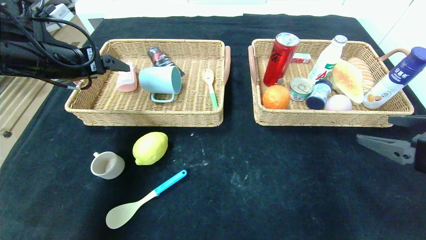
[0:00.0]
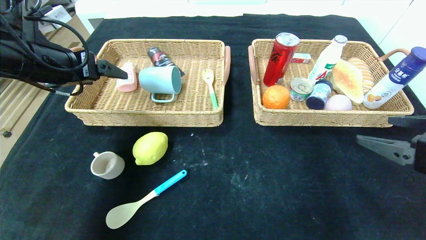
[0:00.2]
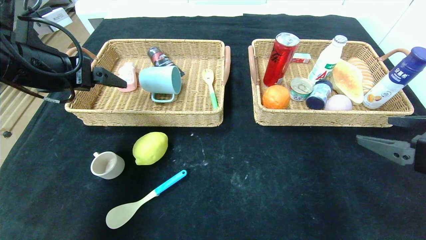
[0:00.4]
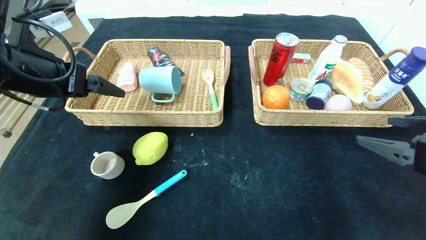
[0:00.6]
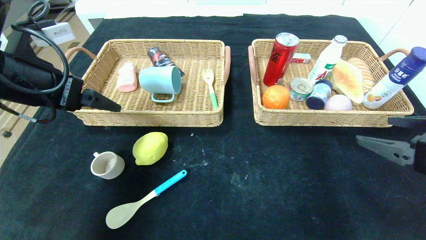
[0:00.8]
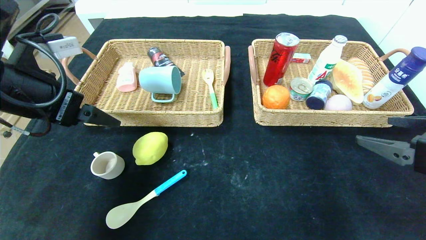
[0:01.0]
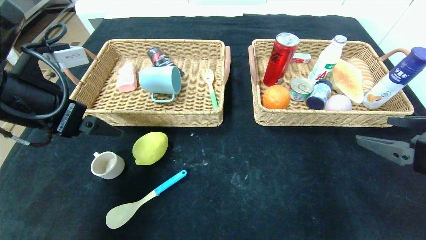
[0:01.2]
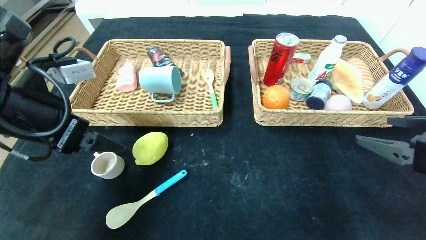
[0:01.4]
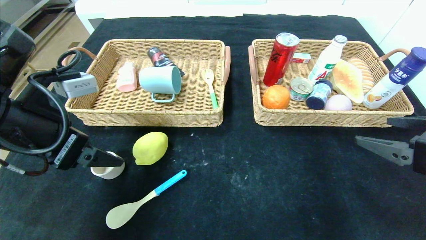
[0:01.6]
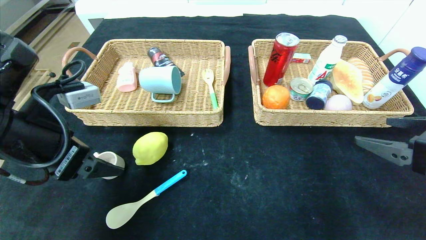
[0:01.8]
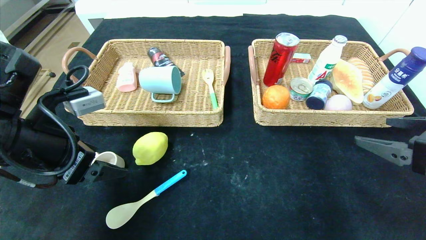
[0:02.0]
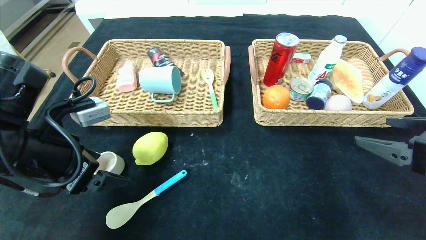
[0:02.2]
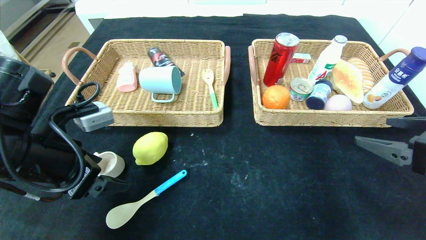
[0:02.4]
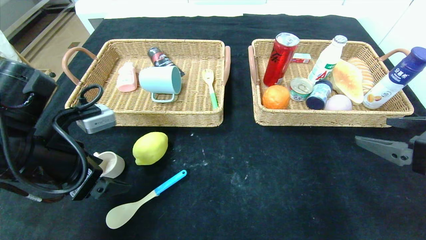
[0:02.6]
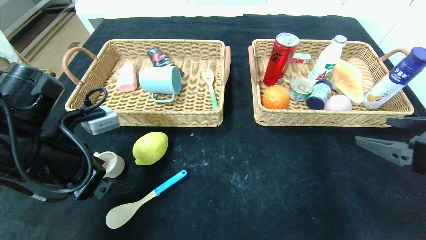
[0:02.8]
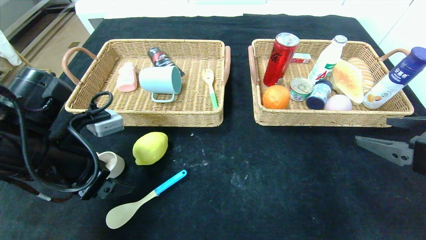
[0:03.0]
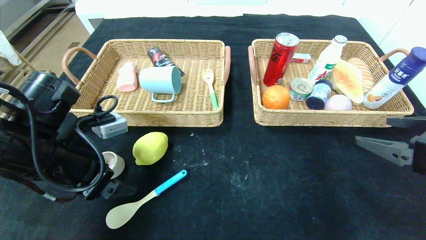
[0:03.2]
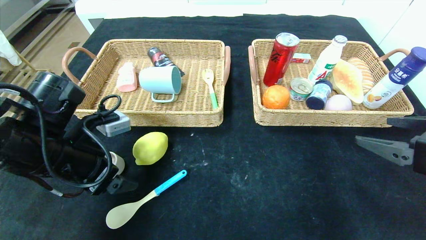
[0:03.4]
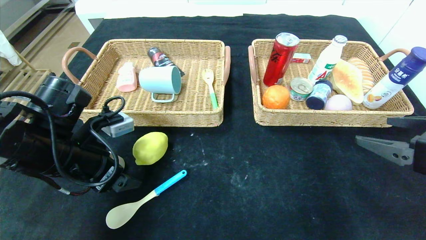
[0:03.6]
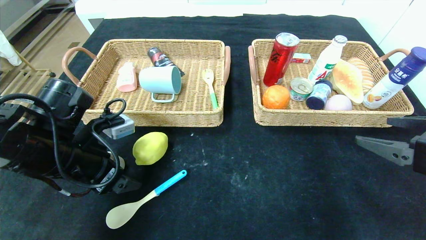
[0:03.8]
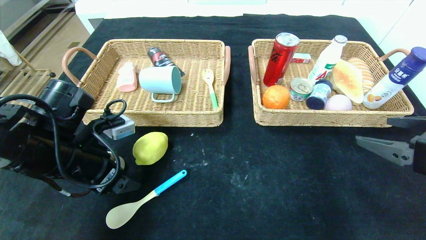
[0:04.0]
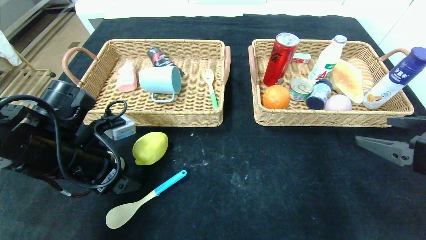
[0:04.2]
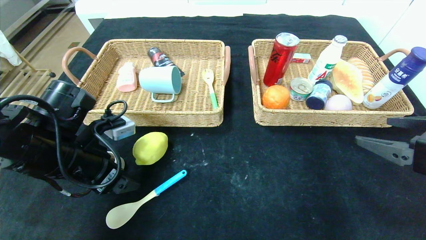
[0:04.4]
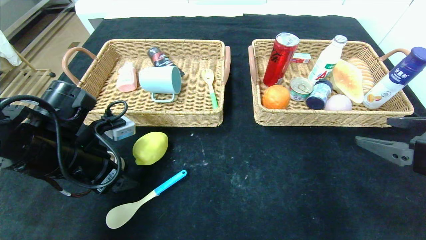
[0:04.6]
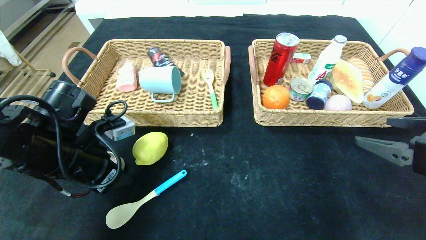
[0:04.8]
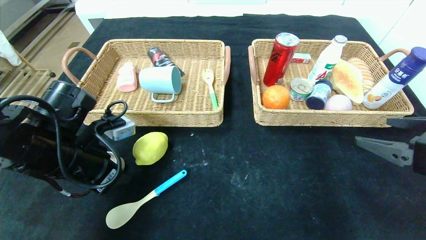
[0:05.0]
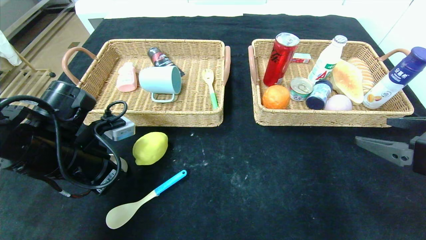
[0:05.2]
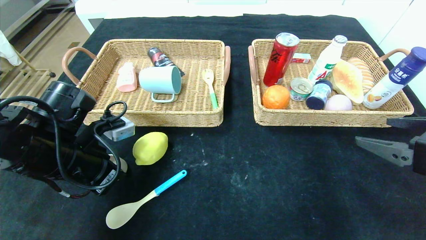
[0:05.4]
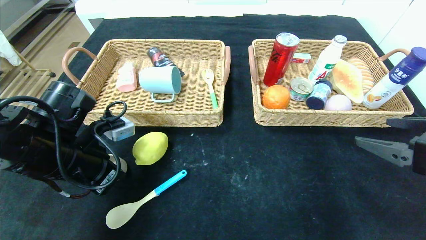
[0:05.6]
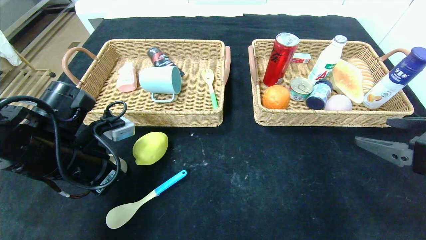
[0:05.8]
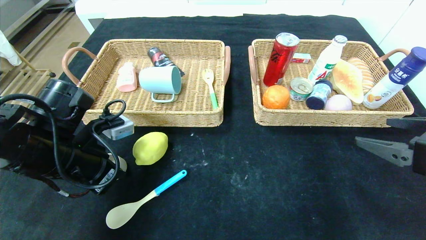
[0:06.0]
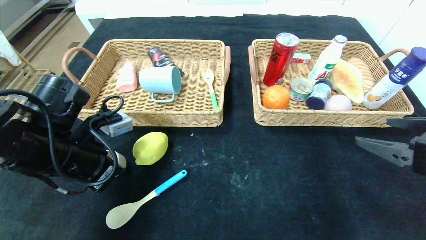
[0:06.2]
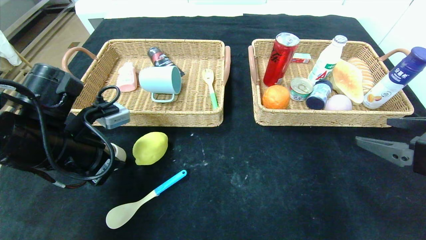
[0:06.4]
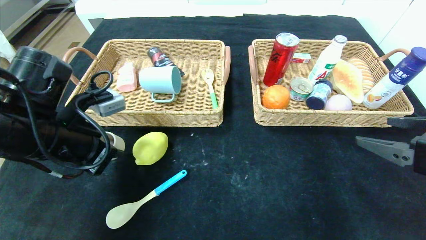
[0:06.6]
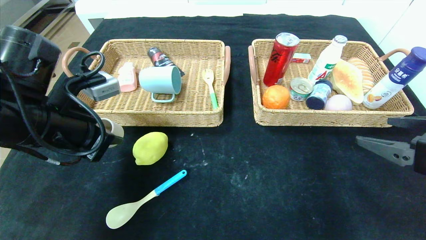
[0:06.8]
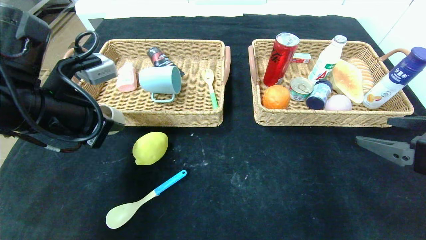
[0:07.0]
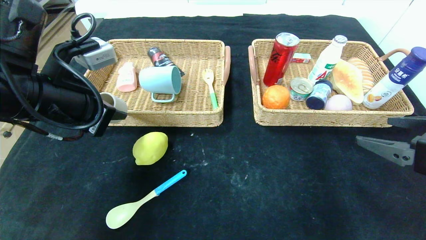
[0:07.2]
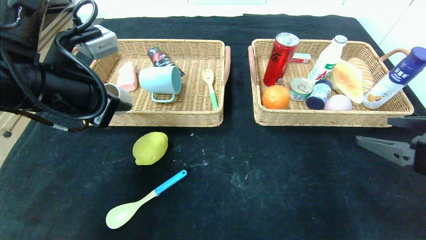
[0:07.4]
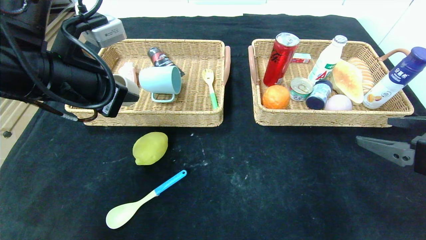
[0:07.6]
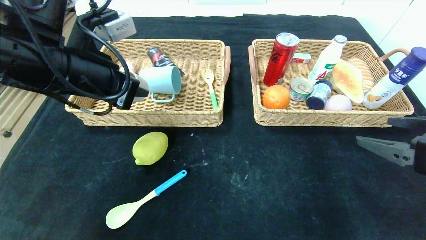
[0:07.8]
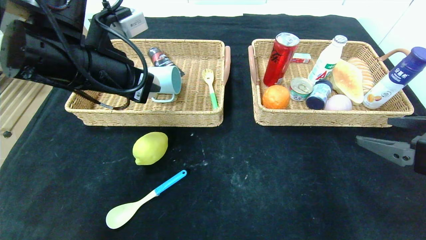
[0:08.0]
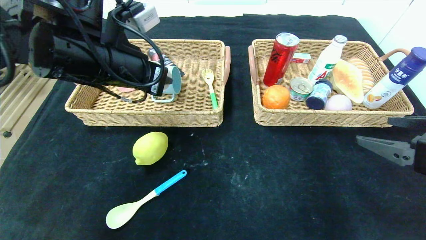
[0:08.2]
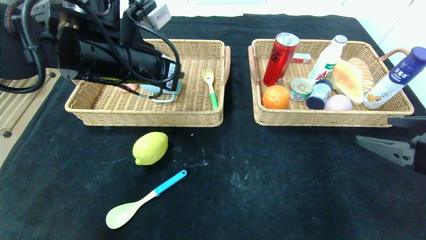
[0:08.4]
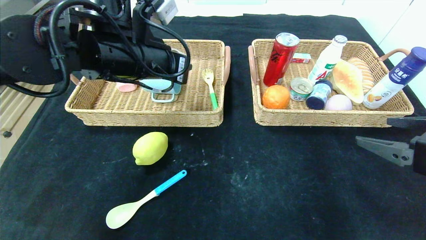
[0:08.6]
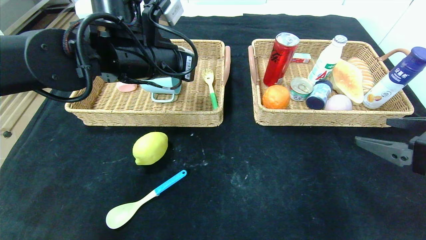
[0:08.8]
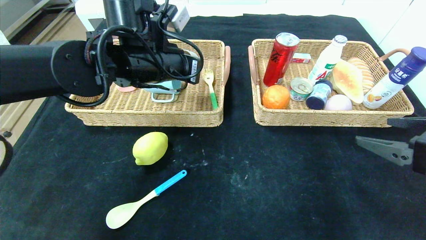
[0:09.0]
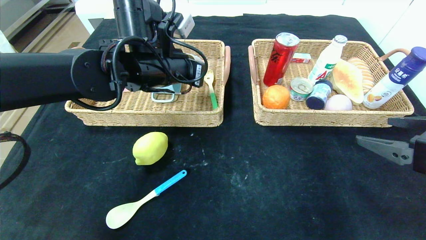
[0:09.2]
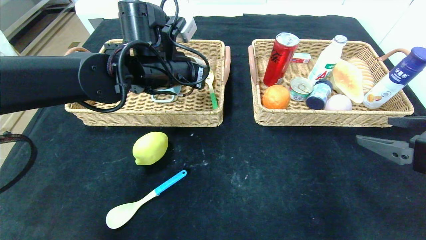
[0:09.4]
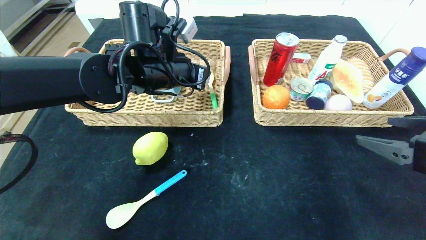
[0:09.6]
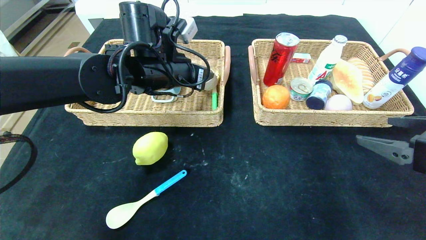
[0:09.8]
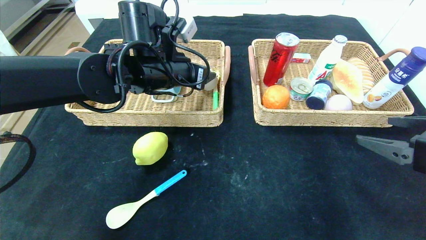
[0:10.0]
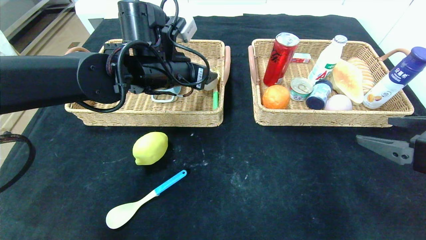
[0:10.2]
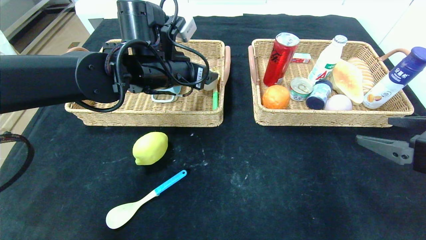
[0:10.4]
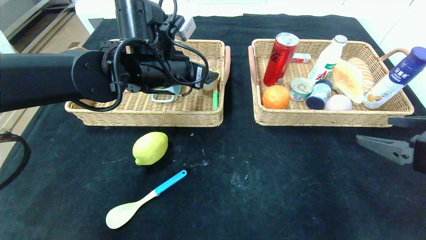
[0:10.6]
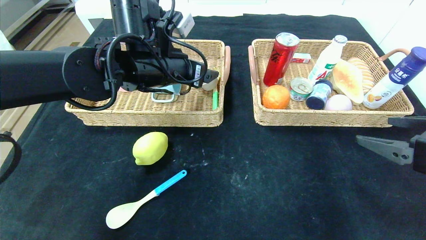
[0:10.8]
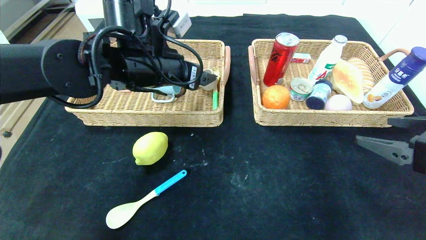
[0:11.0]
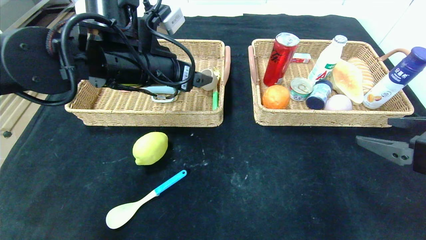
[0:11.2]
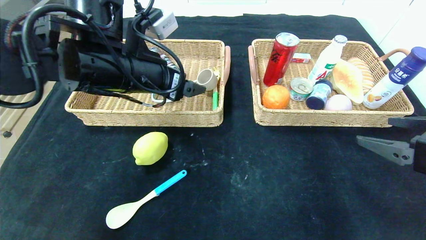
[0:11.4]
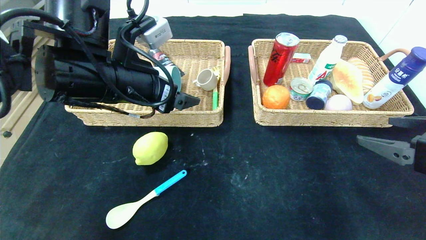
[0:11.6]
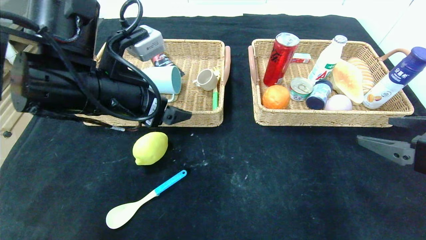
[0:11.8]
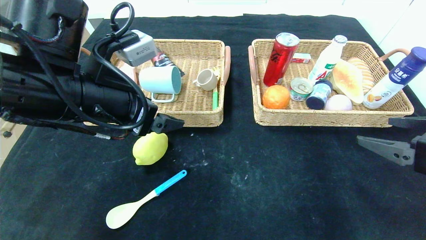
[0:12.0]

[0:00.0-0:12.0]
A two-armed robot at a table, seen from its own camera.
Step, 0:00.4 to 0:10.0: Grasp the grey cup and put it in the left basket.
0:00.0 to 0:01.6: The left gripper goes about 10 cm backward.
0:01.6 to 0:03.0: The left gripper heads downward, covering approximately 5 cm.
0:03.0 to 0:04.4: The grippers stay close to where they were, moving slightly.
0:04.4 to 0:06.0: The left gripper closes its fingers.
0:06.0 to 0:07.6: The left gripper is displaced upward by roughly 10 cm.
0:07.6 to 0:09.0: The left gripper is displaced forward and to the right by about 15 cm.
0:09.0 to 0:10.4: The left gripper opens.
0:10.4 to 0:12.0: The left gripper moves backward and to the left, approximately 15 cm.

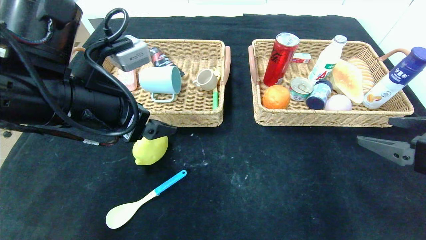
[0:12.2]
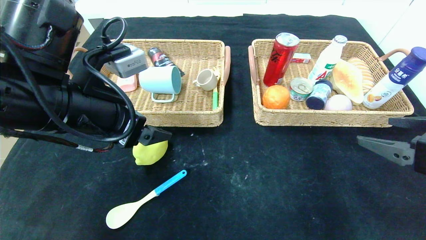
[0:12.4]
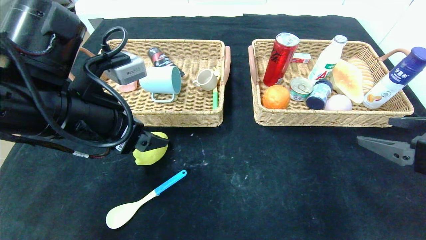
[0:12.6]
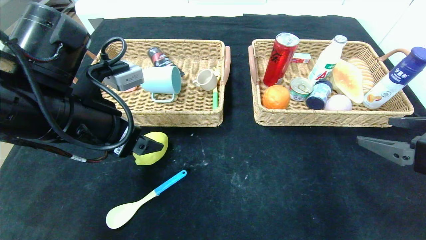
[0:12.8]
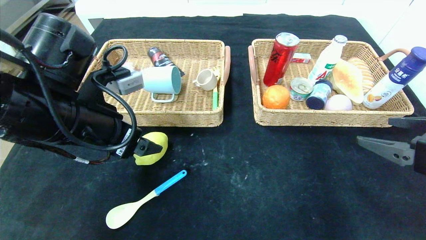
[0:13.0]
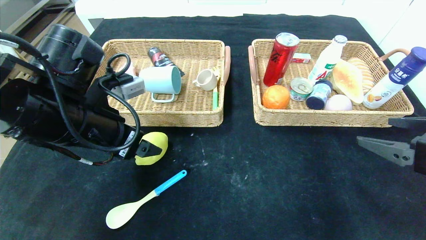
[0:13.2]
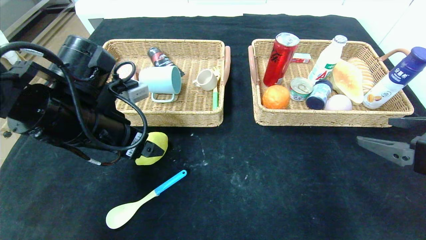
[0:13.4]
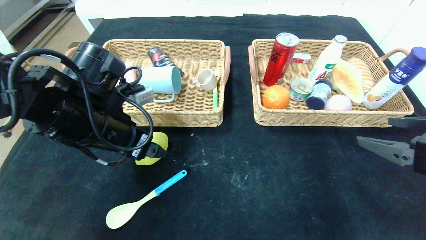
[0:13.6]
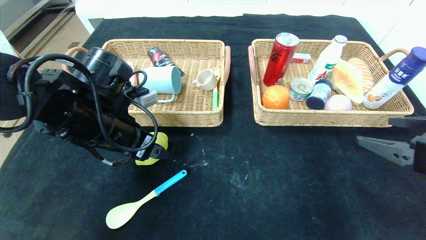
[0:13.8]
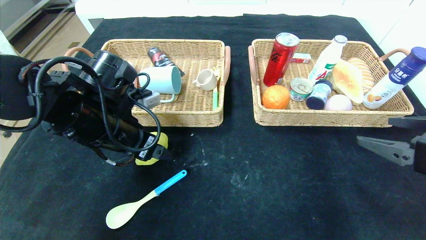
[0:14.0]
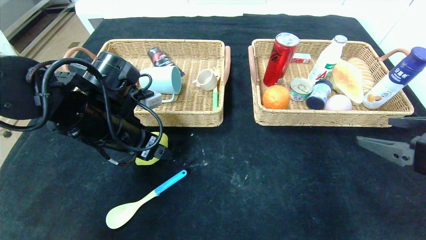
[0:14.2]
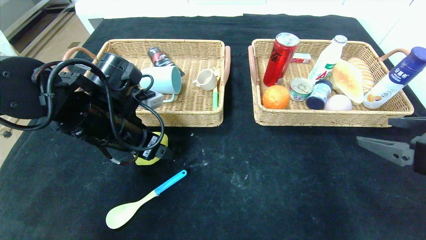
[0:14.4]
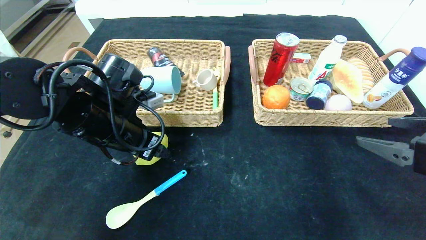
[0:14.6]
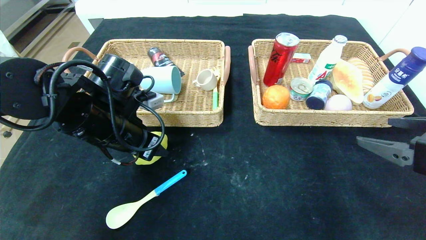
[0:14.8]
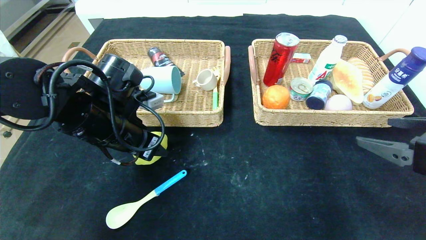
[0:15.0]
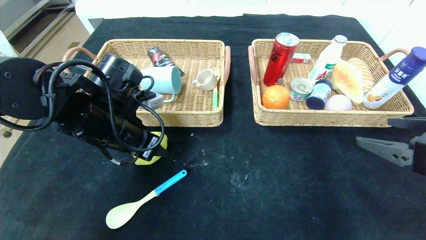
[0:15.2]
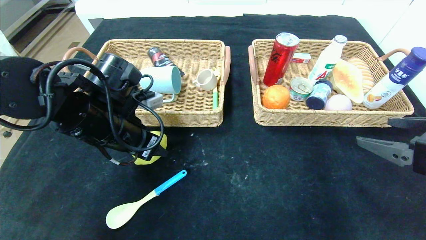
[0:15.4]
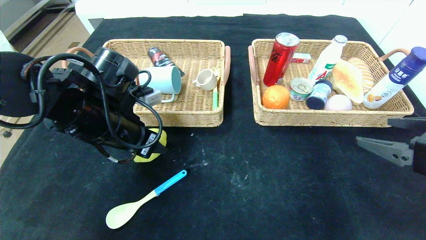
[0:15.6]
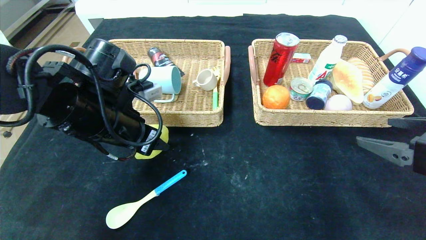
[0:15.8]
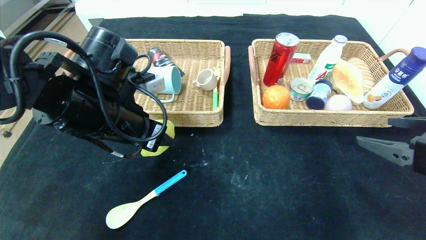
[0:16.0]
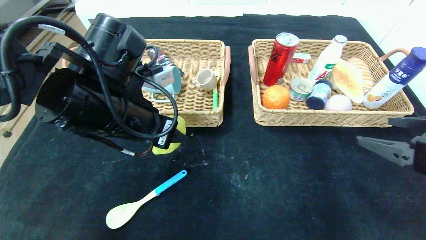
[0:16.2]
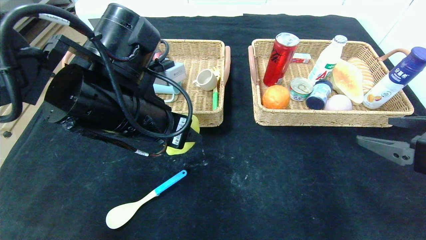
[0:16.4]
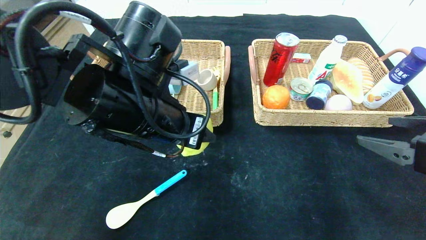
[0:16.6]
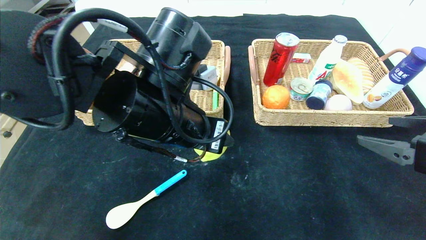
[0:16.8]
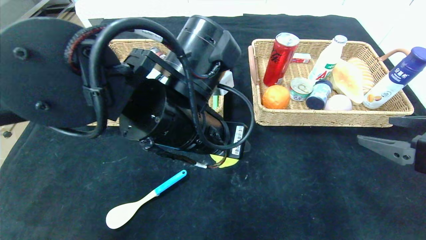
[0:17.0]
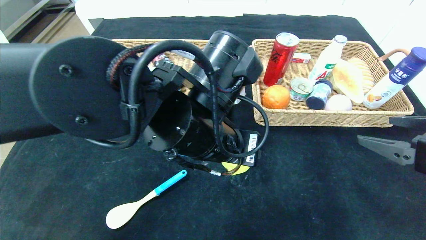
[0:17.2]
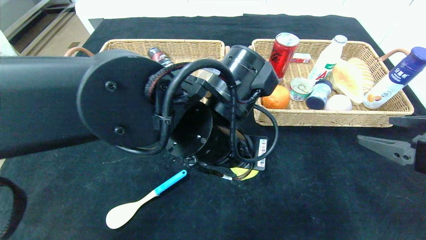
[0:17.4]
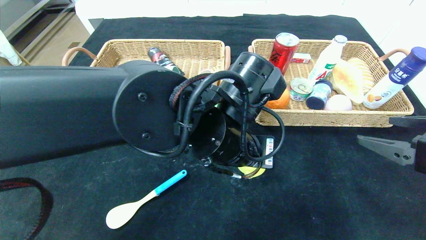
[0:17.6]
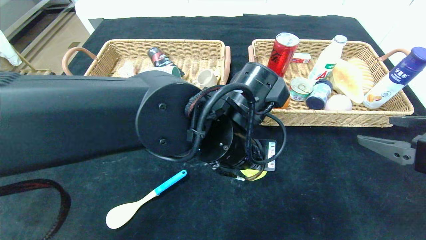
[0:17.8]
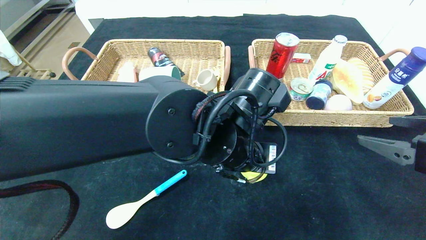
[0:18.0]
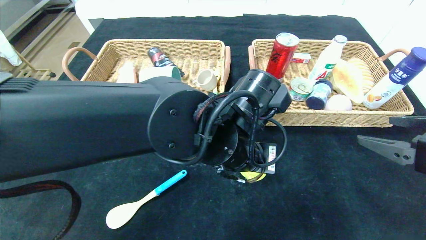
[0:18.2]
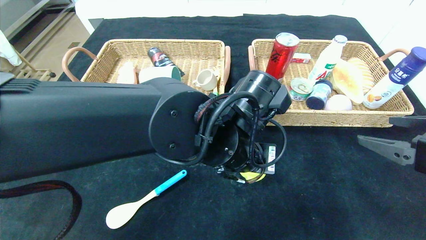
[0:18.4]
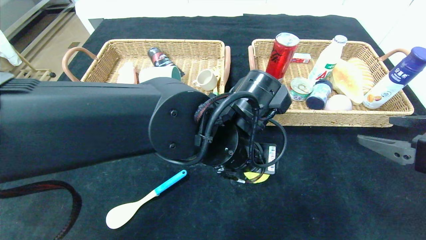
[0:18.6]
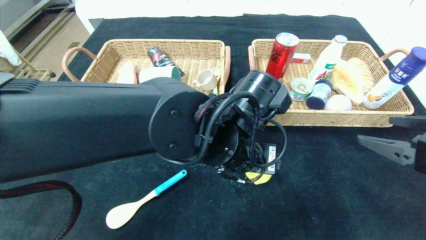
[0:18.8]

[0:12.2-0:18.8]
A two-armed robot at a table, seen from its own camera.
0:12.2 to 0:13.8: The left gripper is displaced downward by some 5 cm.
0:13.8 to 0:15.4: The left gripper closes.
0:15.4 to 0:17.2: The left gripper is displaced to the right by some 15 cm.
0:17.2 to 0:18.8: The left gripper changes place by roughly 5 cm.
